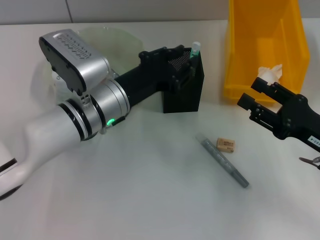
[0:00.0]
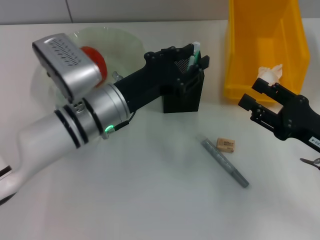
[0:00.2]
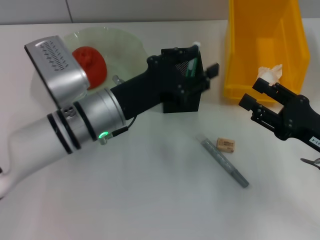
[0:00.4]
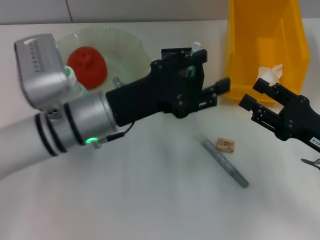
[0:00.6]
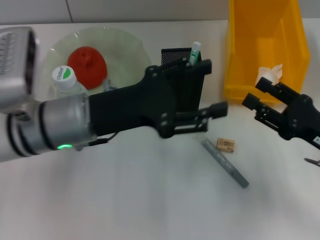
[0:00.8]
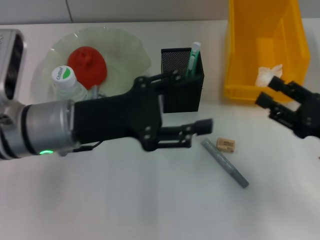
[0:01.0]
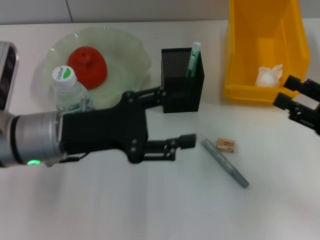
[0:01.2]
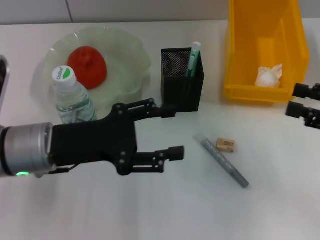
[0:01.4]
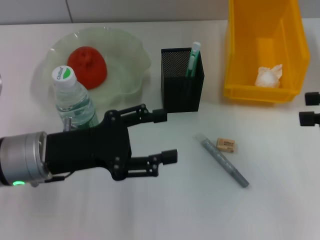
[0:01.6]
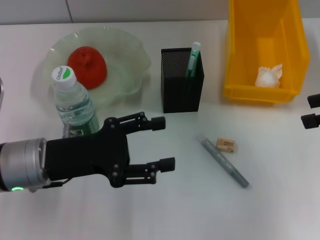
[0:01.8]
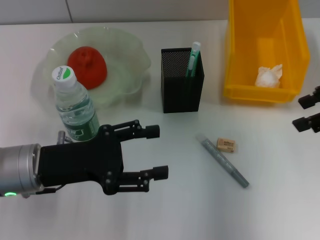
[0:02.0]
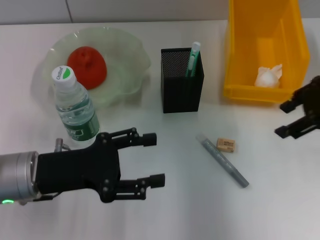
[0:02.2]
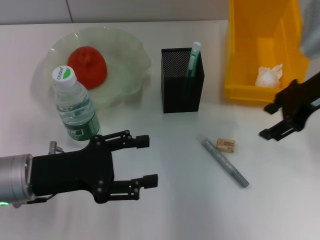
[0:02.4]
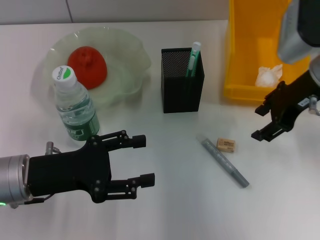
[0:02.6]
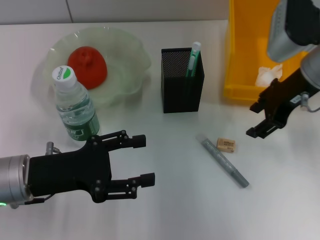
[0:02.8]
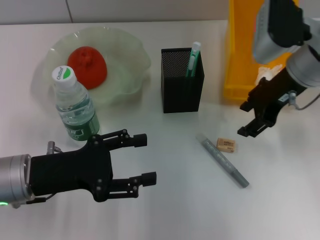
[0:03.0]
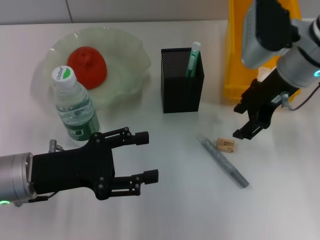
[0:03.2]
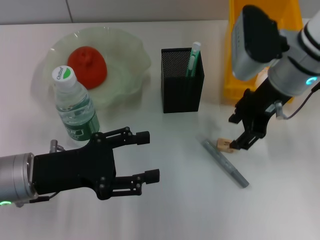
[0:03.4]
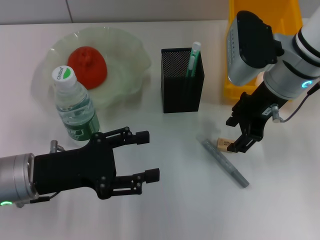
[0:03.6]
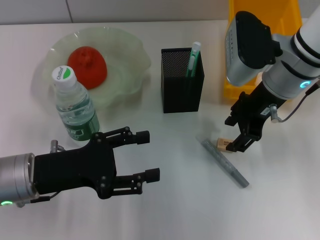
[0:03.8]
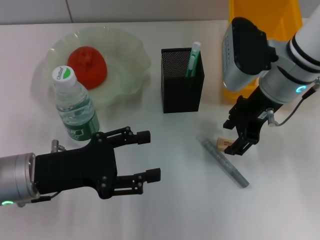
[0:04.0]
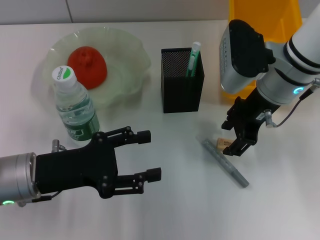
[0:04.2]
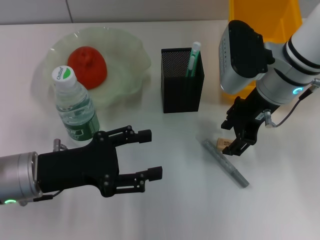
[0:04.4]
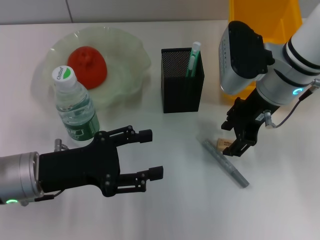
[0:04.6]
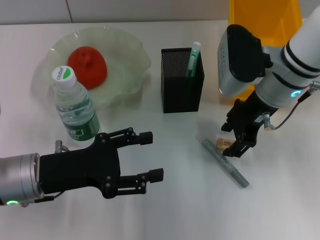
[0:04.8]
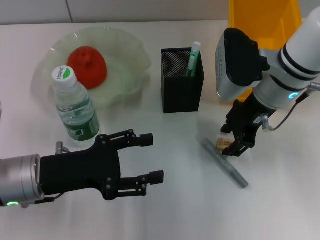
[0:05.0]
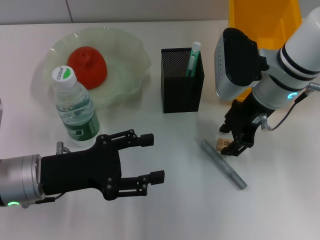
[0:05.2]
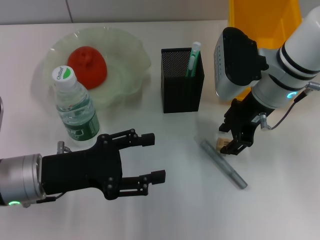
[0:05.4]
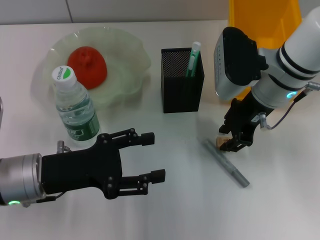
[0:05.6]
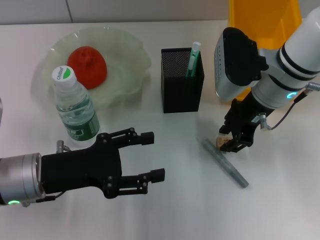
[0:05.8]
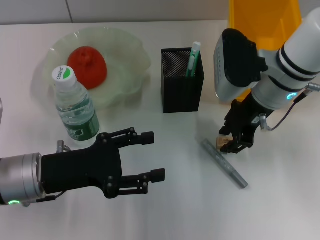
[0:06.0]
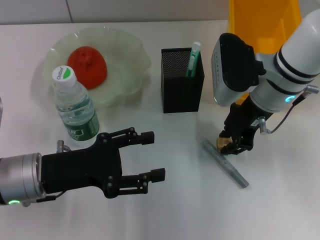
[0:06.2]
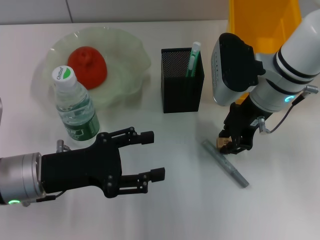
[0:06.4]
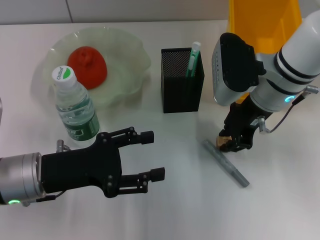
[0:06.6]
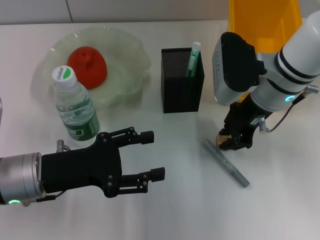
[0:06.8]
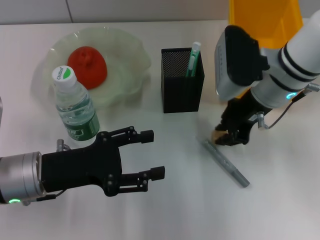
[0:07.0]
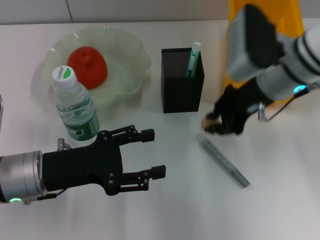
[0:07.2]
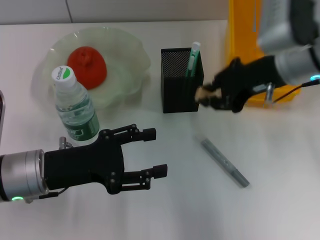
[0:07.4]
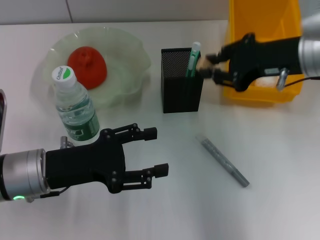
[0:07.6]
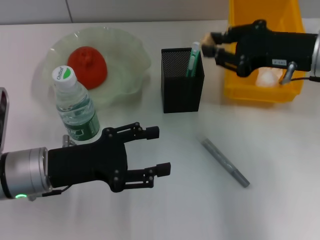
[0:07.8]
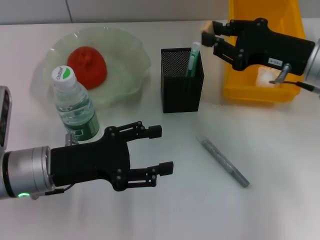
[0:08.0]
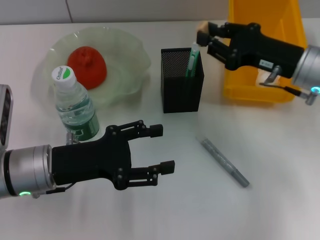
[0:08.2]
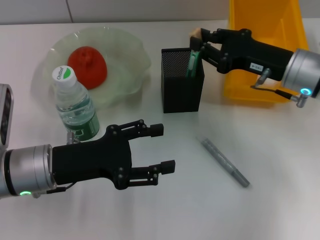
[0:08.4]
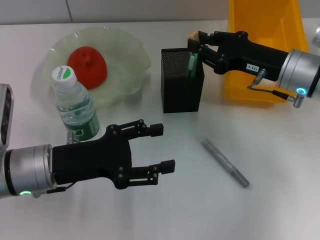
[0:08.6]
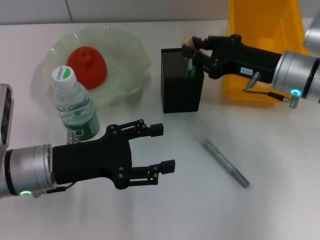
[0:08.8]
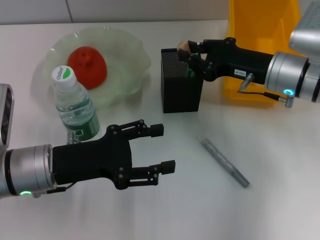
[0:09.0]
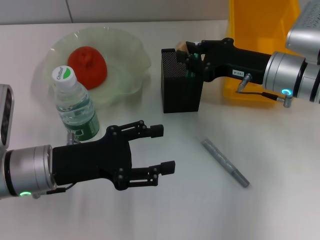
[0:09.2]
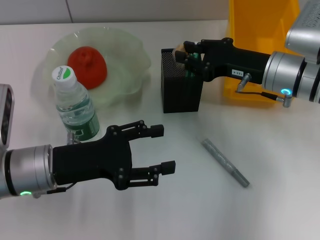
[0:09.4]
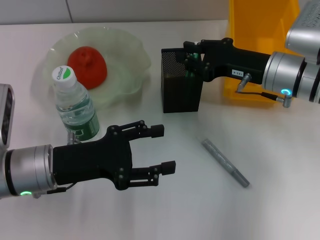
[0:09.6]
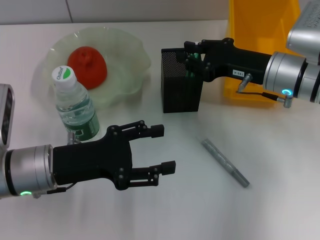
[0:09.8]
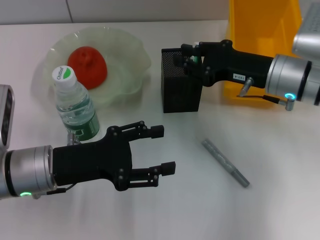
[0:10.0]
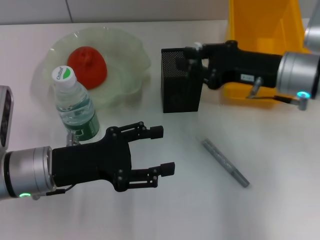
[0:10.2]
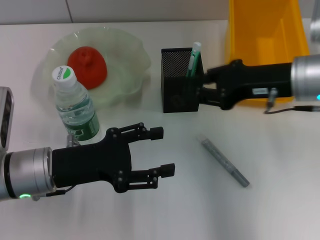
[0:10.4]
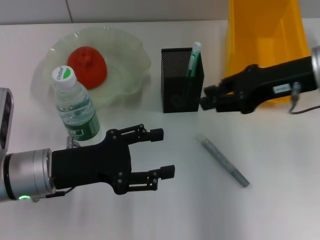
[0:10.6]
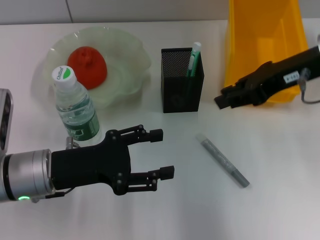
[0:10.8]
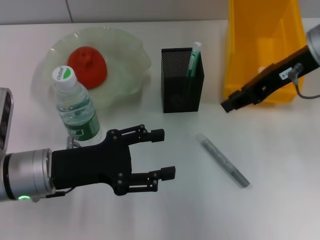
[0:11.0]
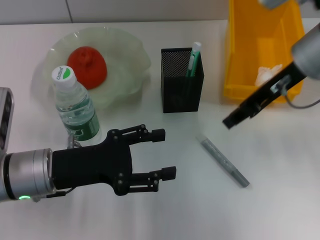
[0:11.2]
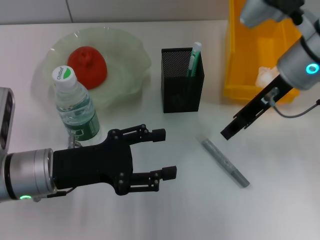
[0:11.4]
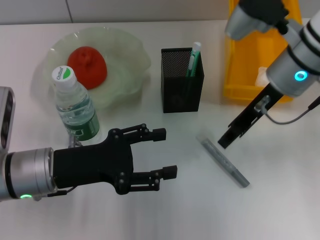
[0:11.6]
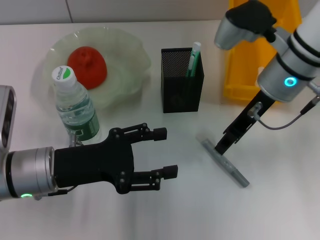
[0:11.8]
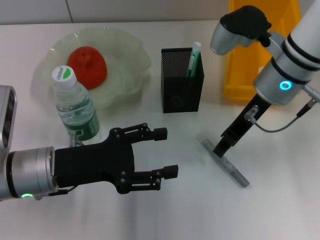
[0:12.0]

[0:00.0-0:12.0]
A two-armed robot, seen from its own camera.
Step, 0.4 to 6.4 s: Grab the eraser with the right hand.
Step, 6.6 to 9.8 s: Put the eraser into the pen holder with the right hand.
0.0 to 1.6 s: The left gripper goes some 10 cm to the left and backward, and opens. The right gripper moves upward and to the right, roughly 15 cm.
1.6 to 3.0 s: The right gripper goes some 20 cm to the left and forward.
3.0 to 4.4 s: The grippers stay close to where they were, moving slightly.
4.4 to 6.0 s: The right gripper closes up.
6.0 to 7.6 s: The right gripper shifts roughly 10 cm to the right and upward.
7.6 to 9.0 s: The right gripper travels downward by roughly 10 cm.
9.0 to 10.4 s: The right gripper moves upward, roughly 5 cm.
10.4 to 12.0 s: The right gripper travels to the left by approximately 5 cm.

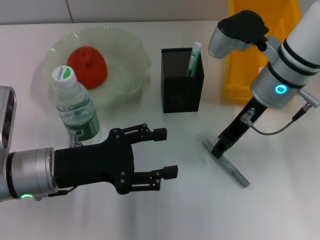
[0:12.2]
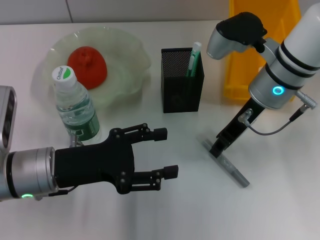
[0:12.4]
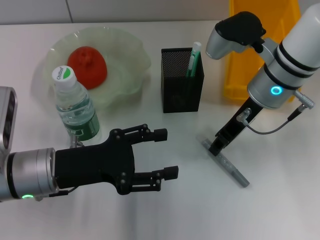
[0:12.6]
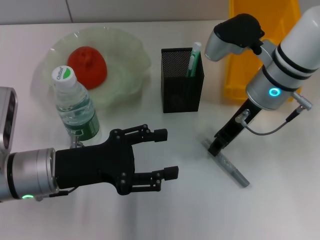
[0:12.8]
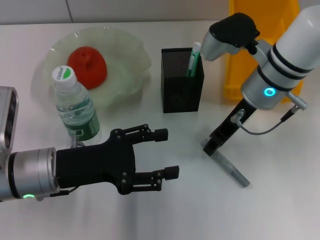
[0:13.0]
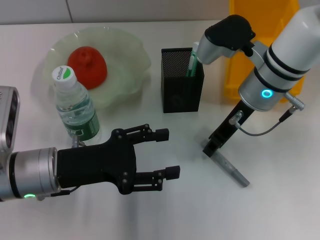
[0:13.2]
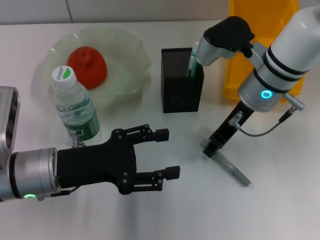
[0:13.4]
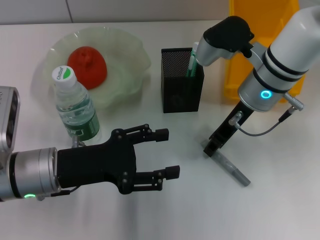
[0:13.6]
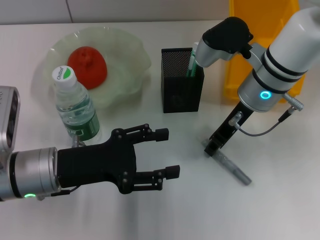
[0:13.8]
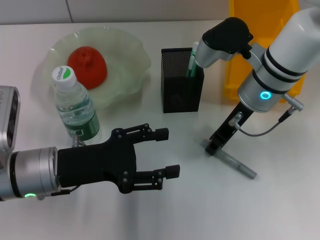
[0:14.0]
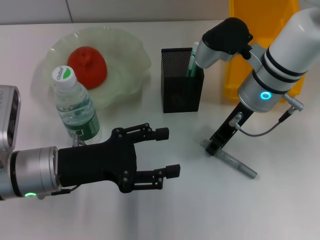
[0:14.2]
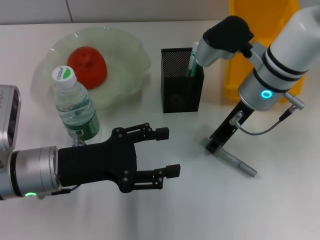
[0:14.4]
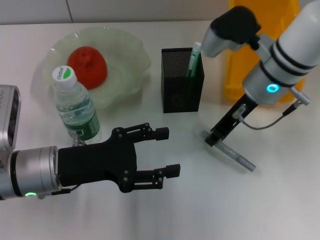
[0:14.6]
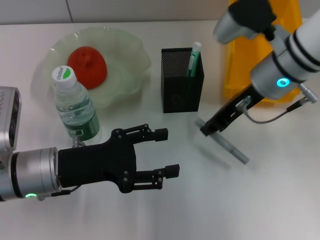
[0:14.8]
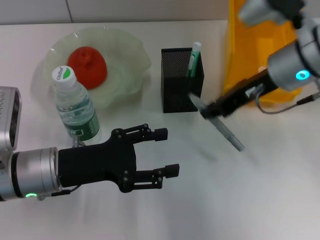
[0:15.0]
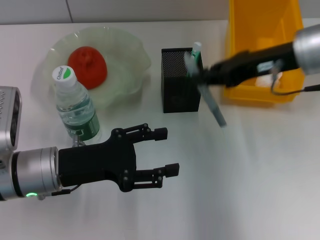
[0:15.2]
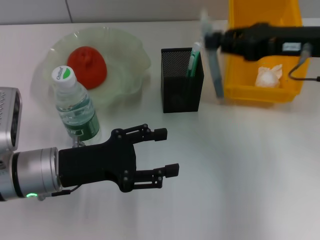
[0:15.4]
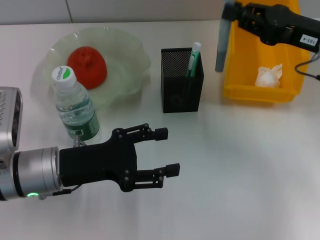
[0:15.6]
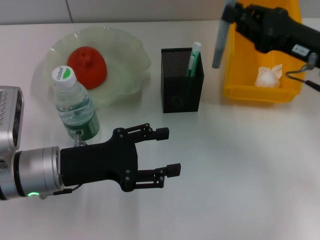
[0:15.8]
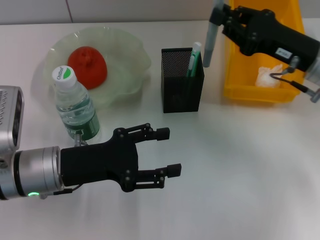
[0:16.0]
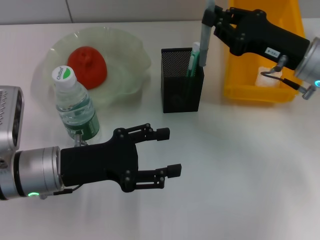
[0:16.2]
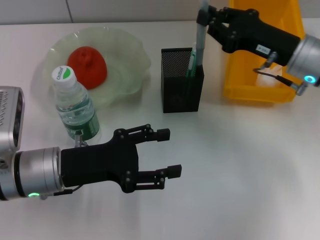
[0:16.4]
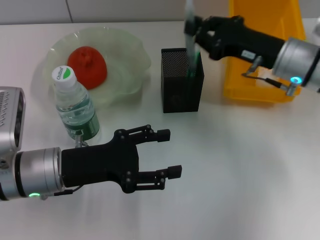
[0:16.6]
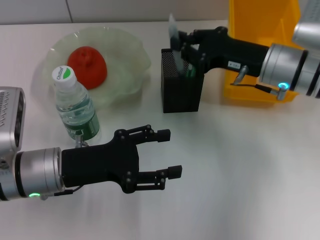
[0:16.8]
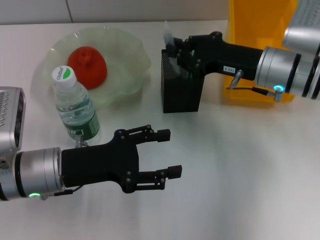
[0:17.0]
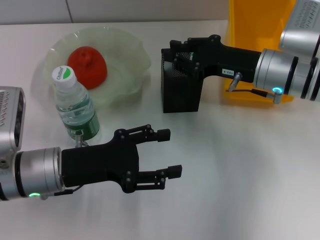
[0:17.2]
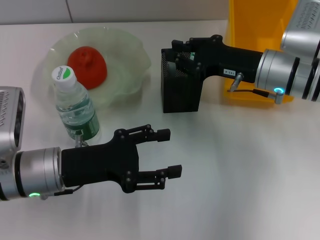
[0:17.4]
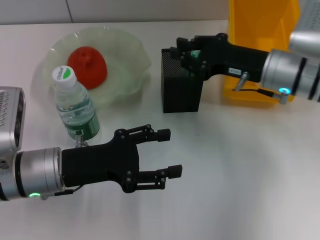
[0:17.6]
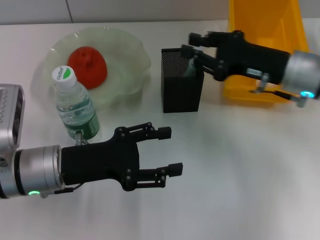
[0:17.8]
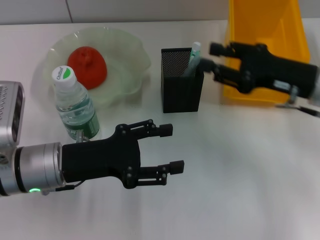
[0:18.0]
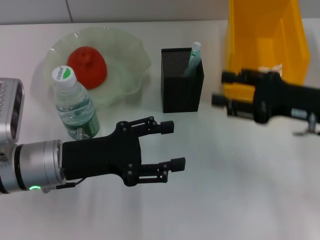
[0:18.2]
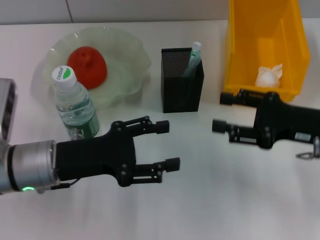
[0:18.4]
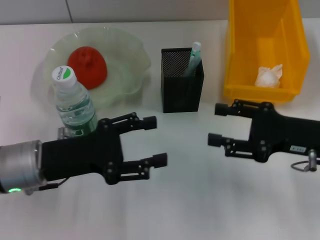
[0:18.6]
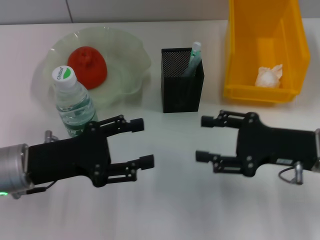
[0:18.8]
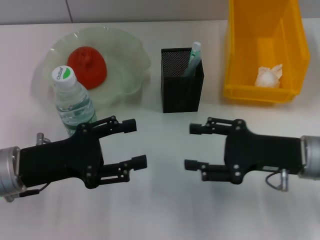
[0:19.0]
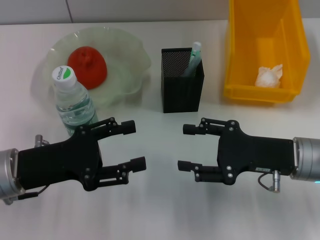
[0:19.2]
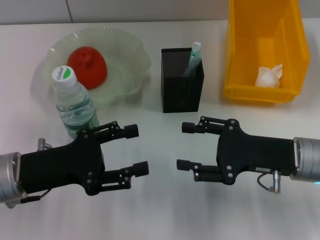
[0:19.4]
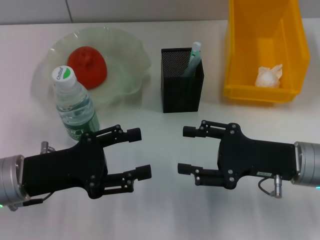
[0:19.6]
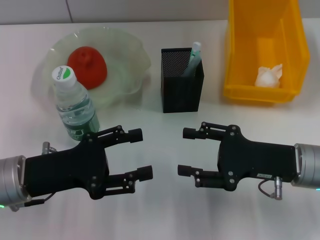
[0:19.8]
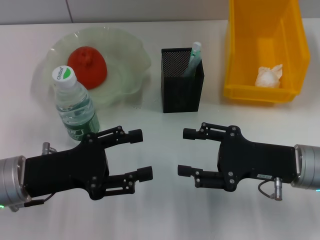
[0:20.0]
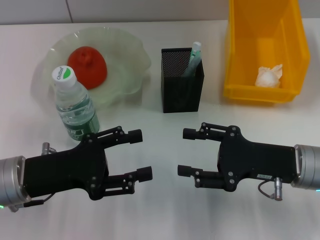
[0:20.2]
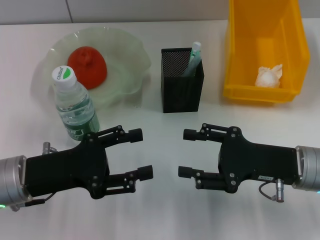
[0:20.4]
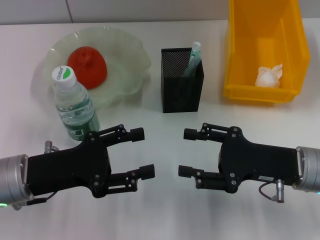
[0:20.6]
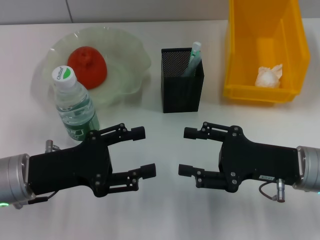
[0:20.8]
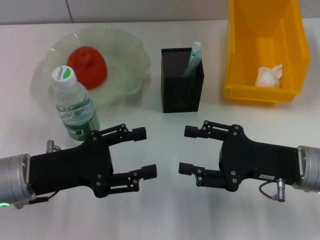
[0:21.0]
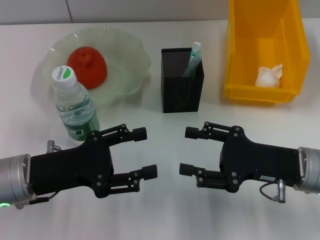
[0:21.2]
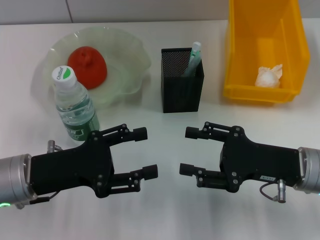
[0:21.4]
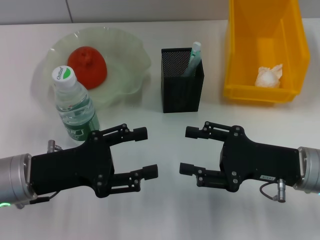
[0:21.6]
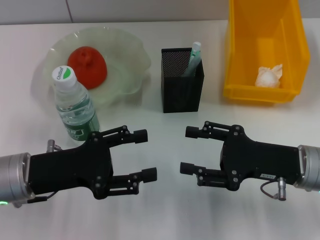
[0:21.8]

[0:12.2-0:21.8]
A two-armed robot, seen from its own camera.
Step, 12.2 to 14.2 s: Grab the gray glue with the right hand.
Step, 14.4 to 17.4 s: Place the gray glue into the pen holder with the right hand.
12.2 to 13.8 s: The grippers move only a little.
13.8 to 15.4 s: The right gripper moves to the right and upward, about 10 cm.
15.4 to 17.0 s: The right gripper moves downward and to the left, approximately 10 cm.
17.0 to 18.6 s: The right gripper moves backward and to the right, some 15 cm, and opens its fingers.
20.2 to 21.8 s: Neither gripper changes place.

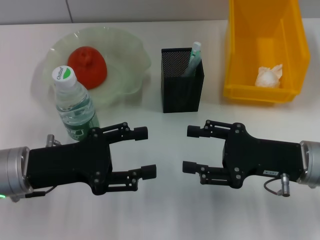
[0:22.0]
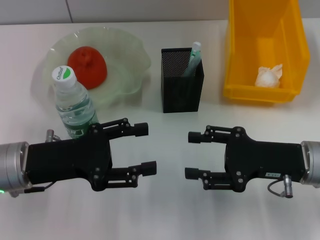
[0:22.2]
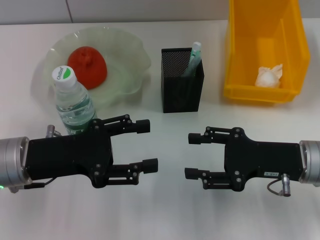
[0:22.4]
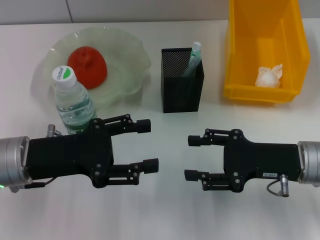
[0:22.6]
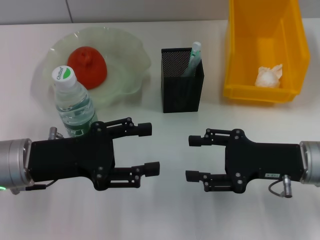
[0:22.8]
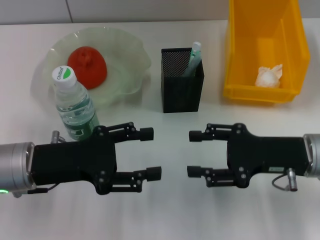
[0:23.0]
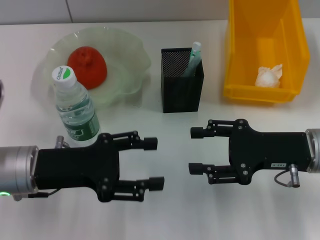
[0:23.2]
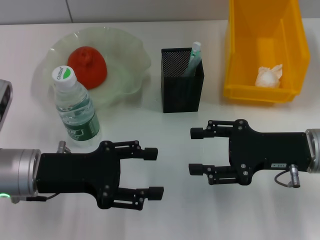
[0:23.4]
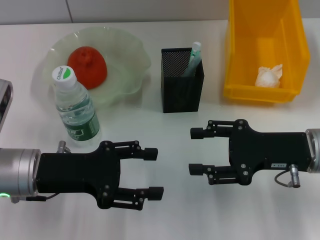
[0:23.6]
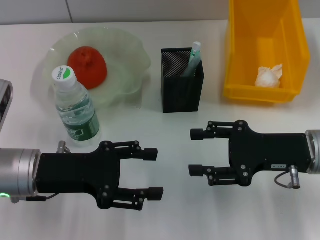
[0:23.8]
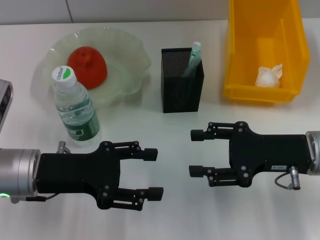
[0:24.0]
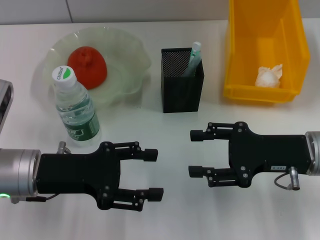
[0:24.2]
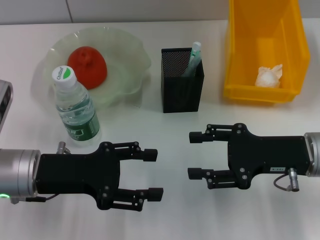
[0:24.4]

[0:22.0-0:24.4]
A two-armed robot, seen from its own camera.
22.0 to 23.2 s: The grippers move only a little.
23.2 to 24.4 s: Neither gripper changes place.
